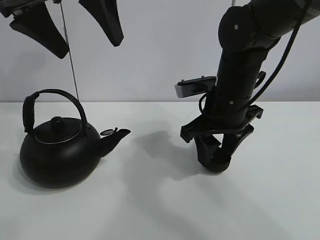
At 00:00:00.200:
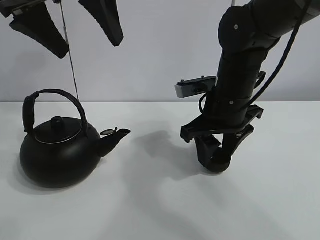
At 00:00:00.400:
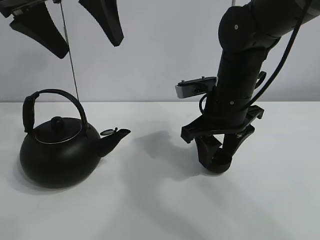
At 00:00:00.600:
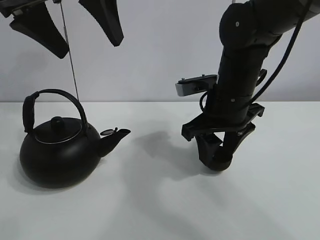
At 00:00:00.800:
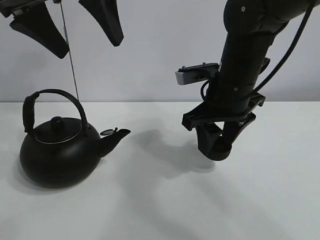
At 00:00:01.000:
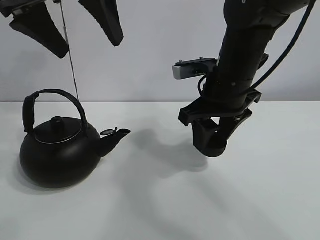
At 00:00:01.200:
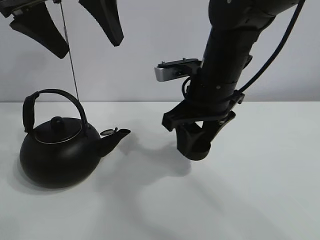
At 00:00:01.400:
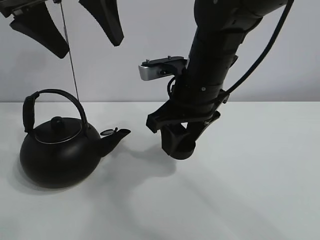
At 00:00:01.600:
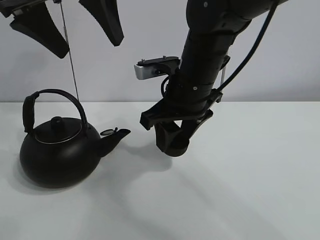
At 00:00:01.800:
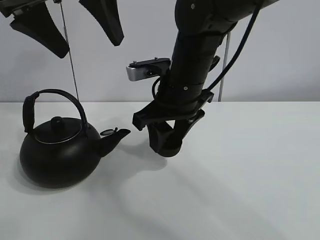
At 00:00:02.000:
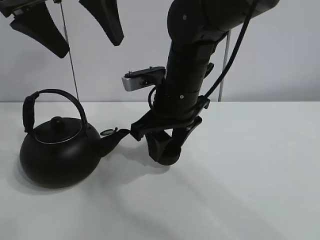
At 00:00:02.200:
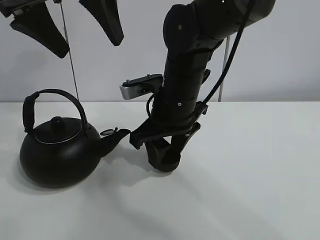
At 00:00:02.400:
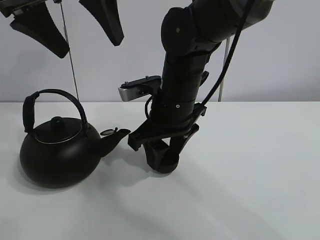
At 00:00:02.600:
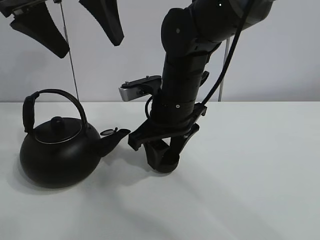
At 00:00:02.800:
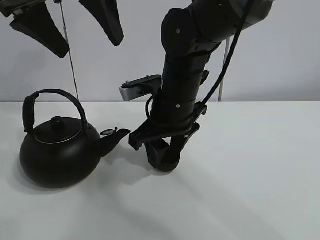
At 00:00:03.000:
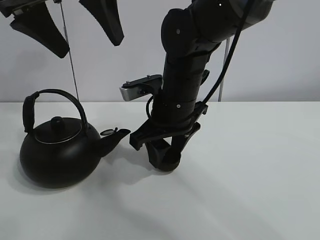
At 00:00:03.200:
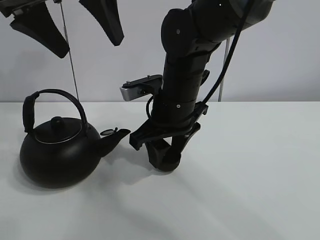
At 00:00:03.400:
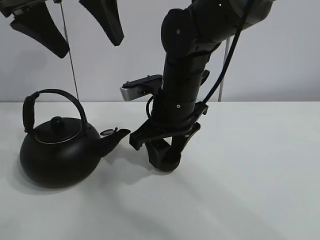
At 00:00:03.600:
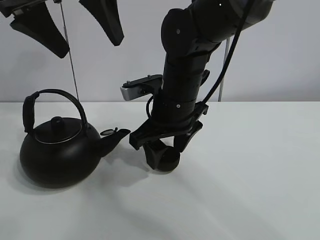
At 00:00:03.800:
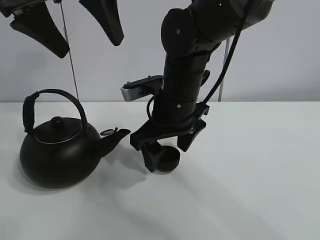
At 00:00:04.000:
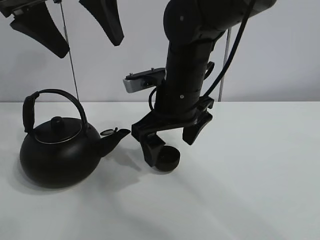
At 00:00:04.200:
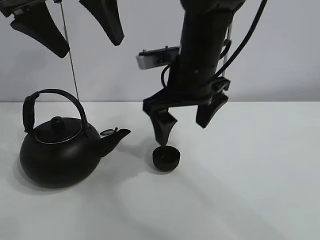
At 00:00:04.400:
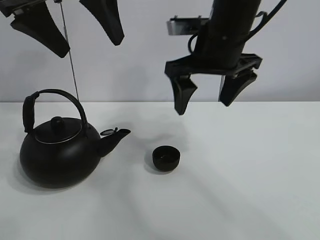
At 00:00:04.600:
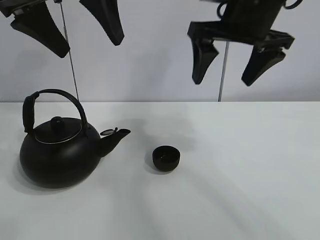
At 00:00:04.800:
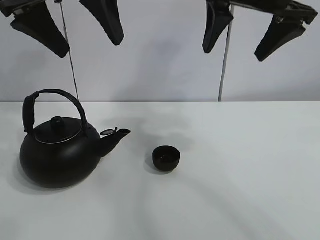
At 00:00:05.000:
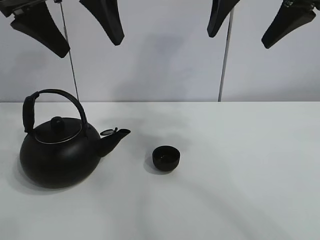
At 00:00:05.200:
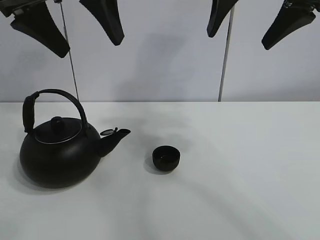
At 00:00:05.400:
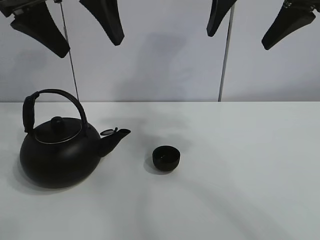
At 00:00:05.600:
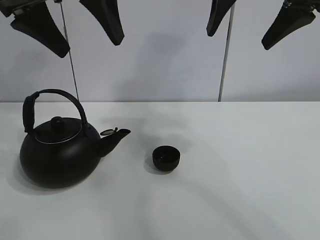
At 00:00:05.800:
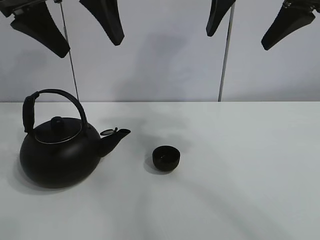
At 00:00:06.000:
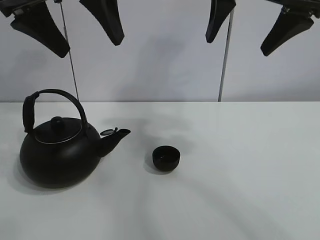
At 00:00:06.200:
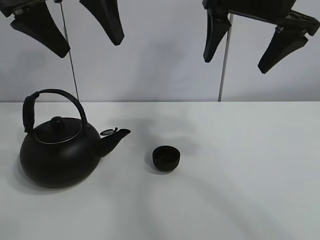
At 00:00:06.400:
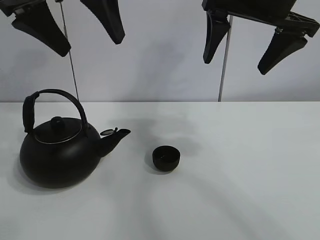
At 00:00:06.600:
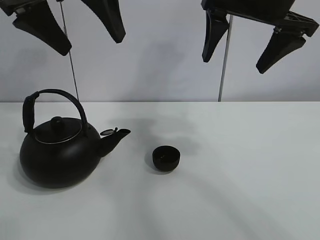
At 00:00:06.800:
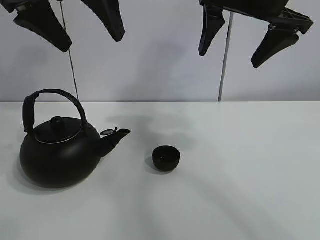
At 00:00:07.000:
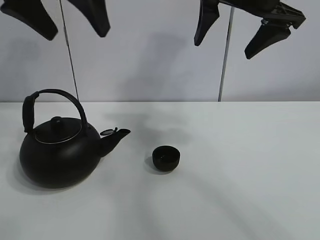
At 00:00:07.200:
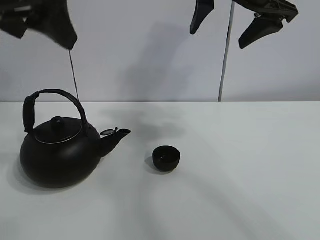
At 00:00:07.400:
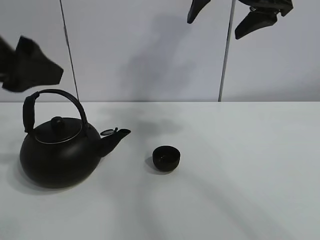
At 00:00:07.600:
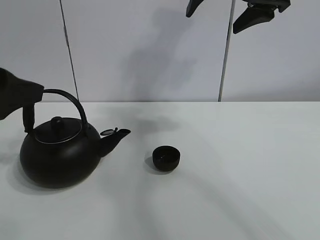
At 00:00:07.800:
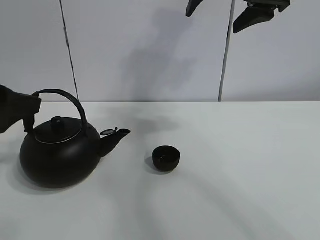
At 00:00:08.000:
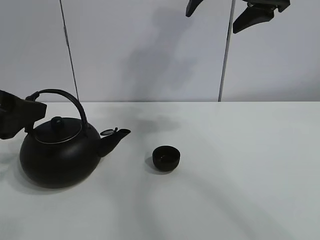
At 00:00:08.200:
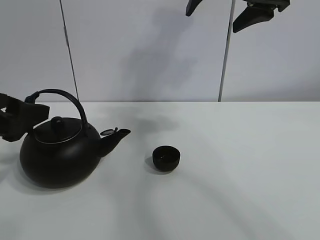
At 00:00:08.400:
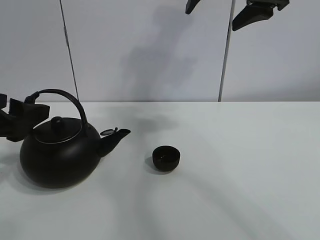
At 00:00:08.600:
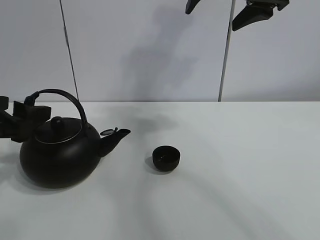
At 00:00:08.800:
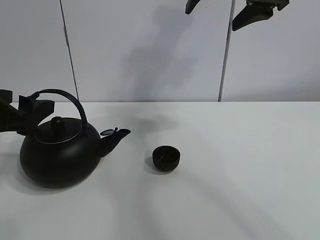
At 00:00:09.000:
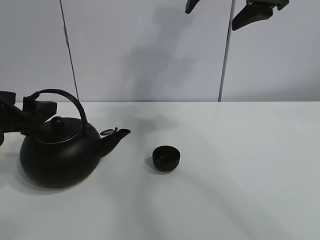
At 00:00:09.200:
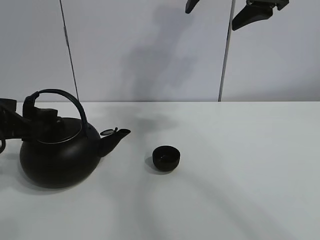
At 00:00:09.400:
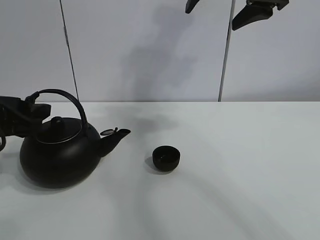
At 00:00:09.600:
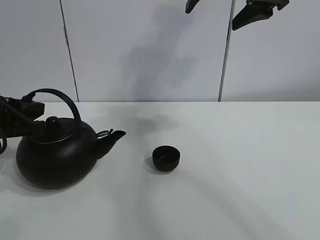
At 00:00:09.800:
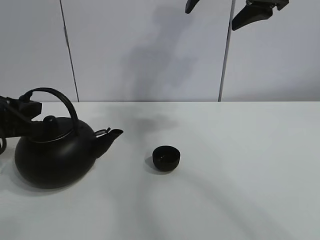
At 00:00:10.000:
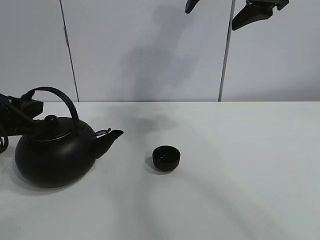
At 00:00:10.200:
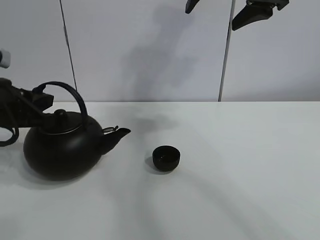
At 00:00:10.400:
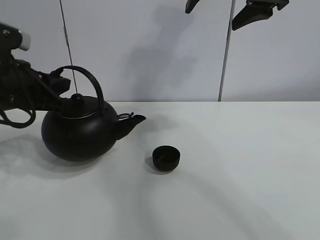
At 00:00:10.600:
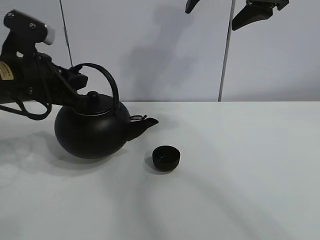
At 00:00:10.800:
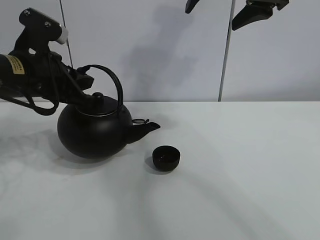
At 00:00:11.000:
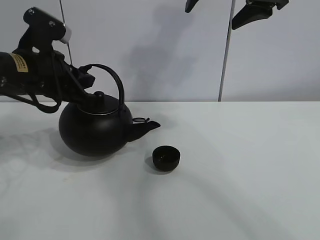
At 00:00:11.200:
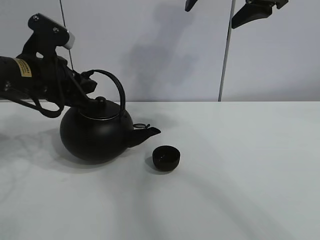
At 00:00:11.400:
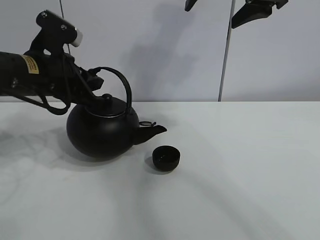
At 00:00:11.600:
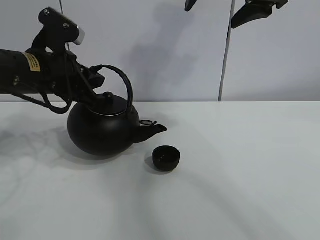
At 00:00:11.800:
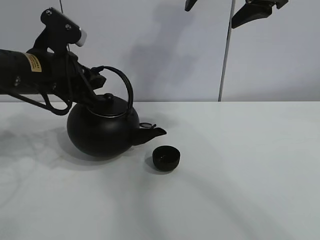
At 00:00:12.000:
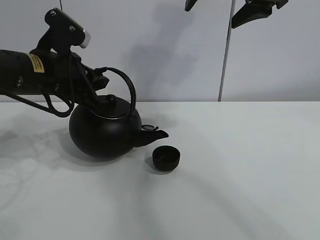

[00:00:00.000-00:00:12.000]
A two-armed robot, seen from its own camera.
Task of the whole recording: pour tea into the teacup.
Step, 00:00:00.200 to 00:00:03.800: Place the teacup in the center of view with the right gripper.
Step, 00:00:04.000 to 00:00:09.800: Pick up the teapot with the left gripper.
00:00:00.000 to 00:00:01.600: The right gripper heads to the left, covering about 5 cm.
00:00:01.600 to 00:00:03.000: The grippers move only a little.
00:00:03.000 to 00:00:04.400: The right gripper heads upward and to the right, covering some 10 cm, and opens its fingers.
00:00:04.400 to 00:00:06.000: The right gripper shifts approximately 10 cm upward and to the right.
00:00:06.000 to 00:00:07.600: The left gripper goes approximately 20 cm downward, to the left and backward.
00:00:07.600 to 00:00:09.000: The left gripper heads downward and forward, covering some 10 cm.
00:00:09.000 to 00:00:10.400: The left gripper ends up roughly 5 cm from where it was, and closes.
00:00:10.400 to 00:00:12.000: The left gripper heads to the right, covering about 5 cm.

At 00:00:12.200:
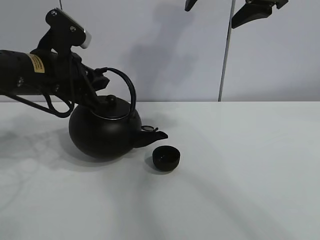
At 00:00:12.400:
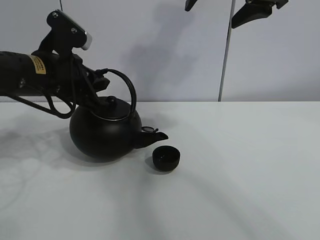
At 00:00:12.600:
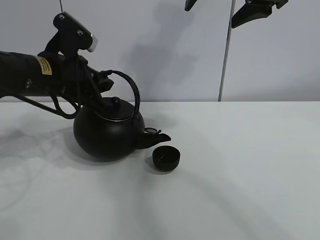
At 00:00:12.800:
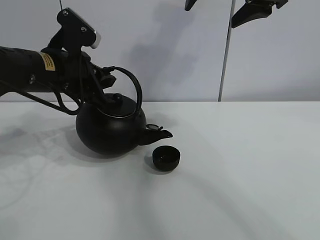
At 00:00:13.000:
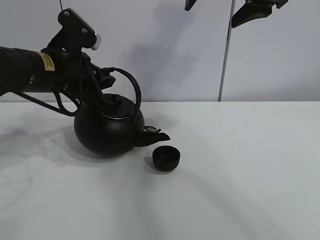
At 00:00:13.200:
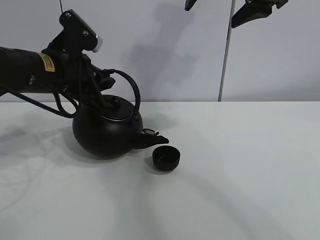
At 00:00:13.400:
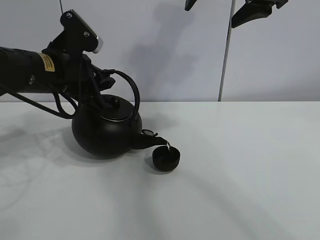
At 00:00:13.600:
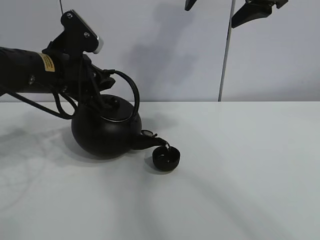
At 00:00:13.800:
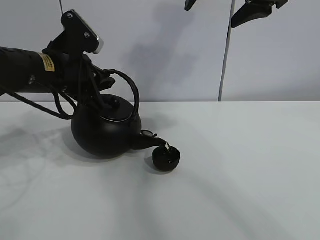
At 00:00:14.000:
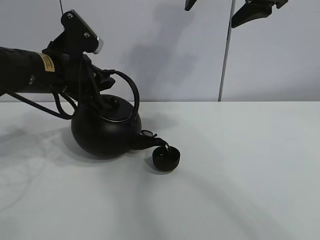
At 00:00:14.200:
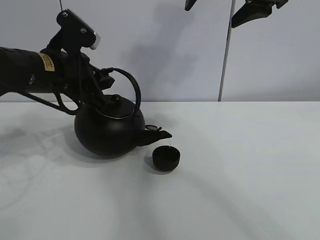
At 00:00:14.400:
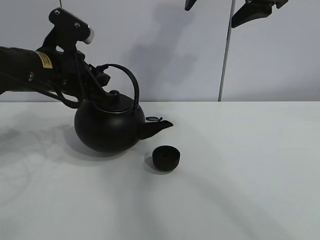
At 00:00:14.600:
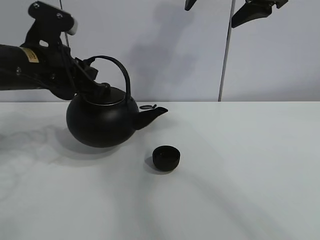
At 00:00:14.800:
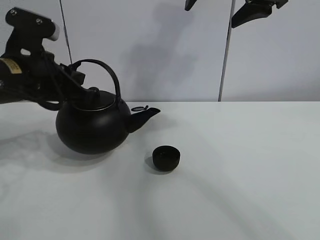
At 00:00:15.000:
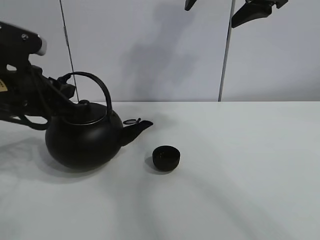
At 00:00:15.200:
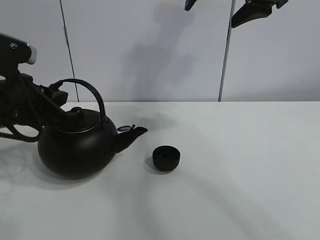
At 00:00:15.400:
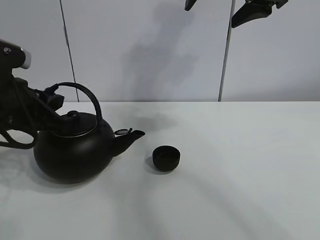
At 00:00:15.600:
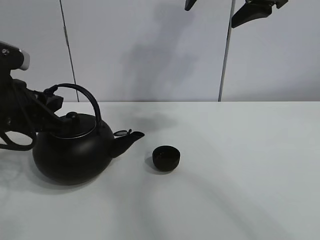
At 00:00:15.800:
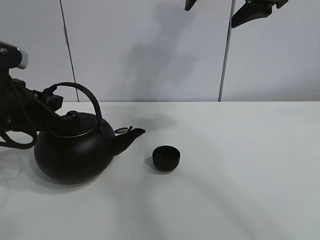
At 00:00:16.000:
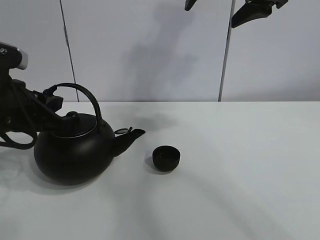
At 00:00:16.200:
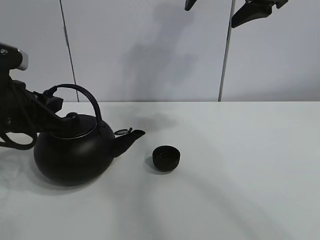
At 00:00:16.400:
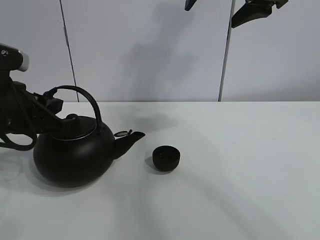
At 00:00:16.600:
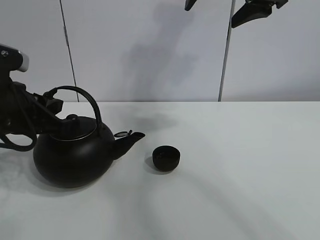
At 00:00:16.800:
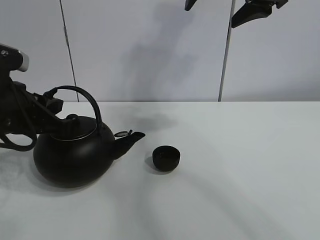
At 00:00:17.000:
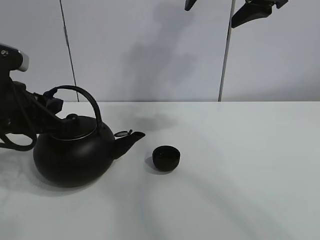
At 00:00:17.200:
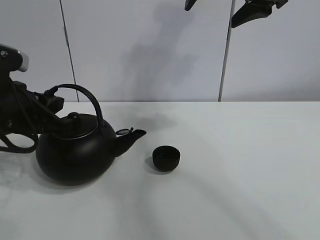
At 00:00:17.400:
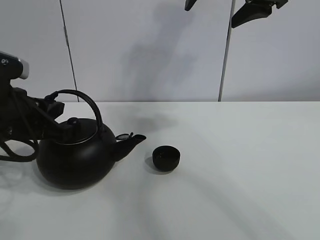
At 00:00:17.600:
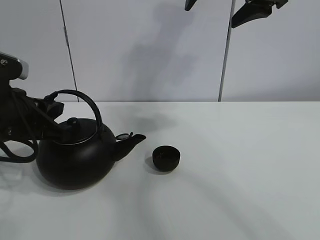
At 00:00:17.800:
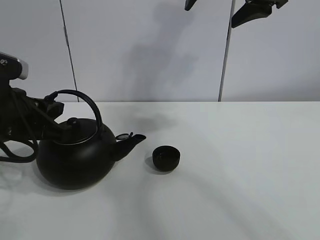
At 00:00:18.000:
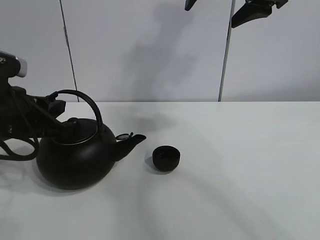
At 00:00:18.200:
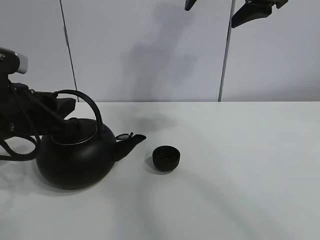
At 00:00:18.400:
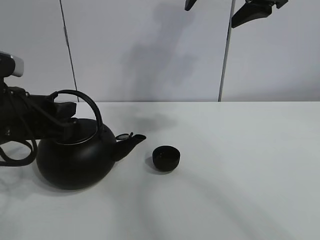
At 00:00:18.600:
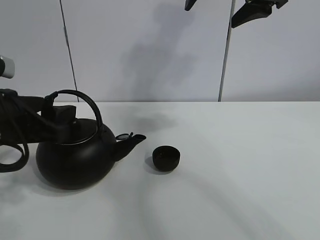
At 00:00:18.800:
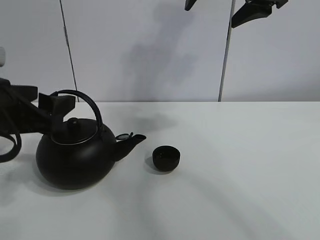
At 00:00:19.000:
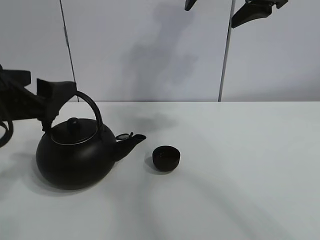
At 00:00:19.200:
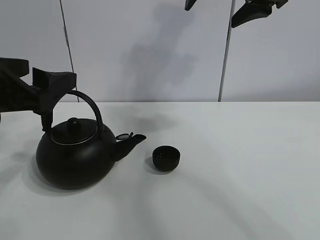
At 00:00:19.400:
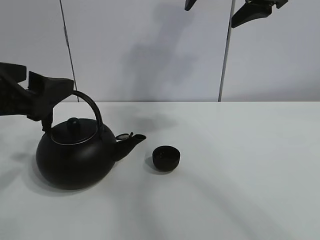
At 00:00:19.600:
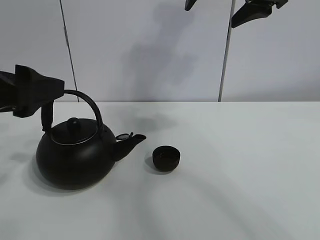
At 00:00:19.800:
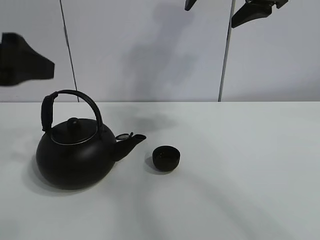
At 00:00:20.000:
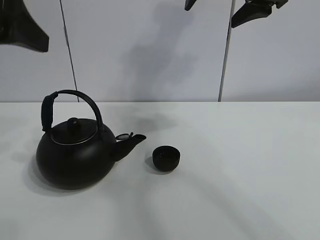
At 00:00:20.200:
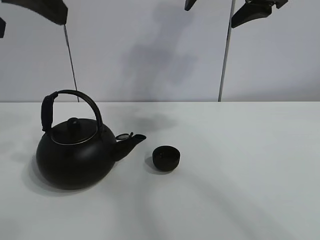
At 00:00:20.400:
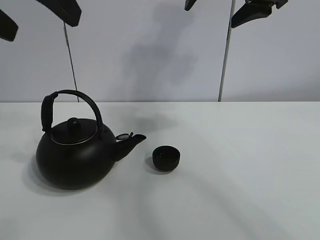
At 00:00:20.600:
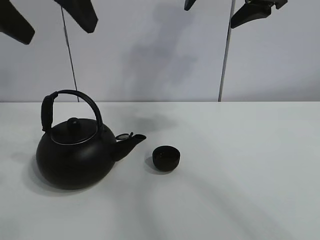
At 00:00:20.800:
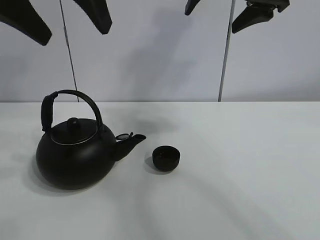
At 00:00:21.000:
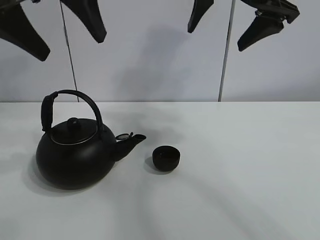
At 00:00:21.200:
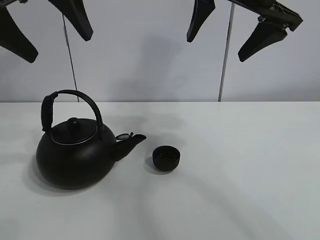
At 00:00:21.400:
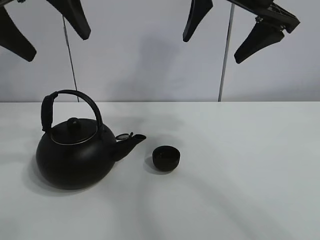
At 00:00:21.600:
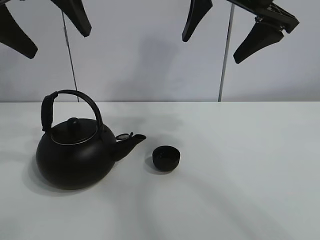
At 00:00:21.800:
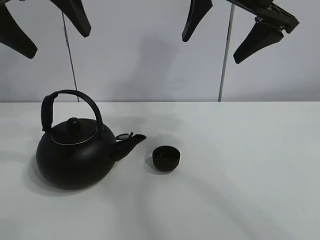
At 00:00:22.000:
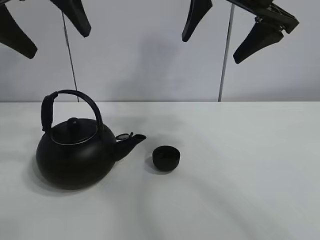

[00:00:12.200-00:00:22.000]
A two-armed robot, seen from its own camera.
Task of the whole recording: pour tea into the teacup.
Step, 00:00:12.200 to 00:00:14.200: Pour tea into the teacup with the left gripper.
00:00:12.200 to 00:00:13.600: The grippers make only small movements.
00:00:13.600 to 00:00:15.000: The left gripper moves backward, some 5 cm.
00:00:15.000 to 00:00:16.400: The grippers move only a little.
00:00:16.400 to 00:00:17.800: The two grippers keep their place.
00:00:17.800 to 00:00:19.200: The left gripper is displaced upward by approximately 5 cm, and opens.
00:00:19.200 to 00:00:20.600: The left gripper goes some 15 cm upward.
00:00:20.600 to 00:00:22.000: The left gripper goes some 5 cm forward.
